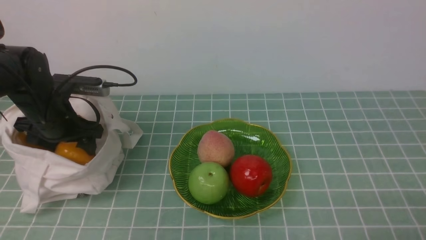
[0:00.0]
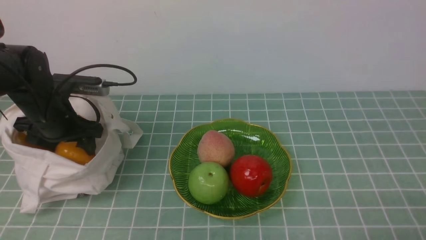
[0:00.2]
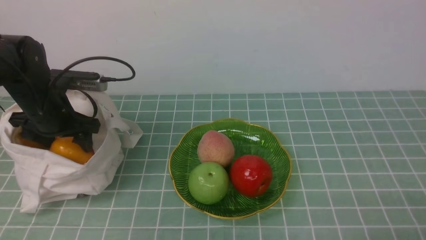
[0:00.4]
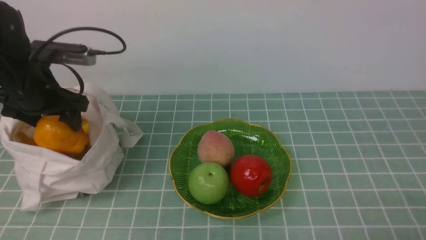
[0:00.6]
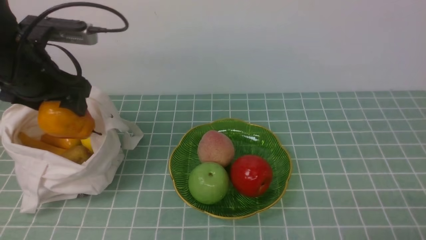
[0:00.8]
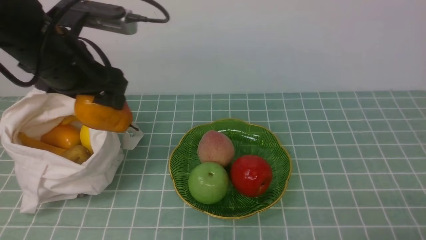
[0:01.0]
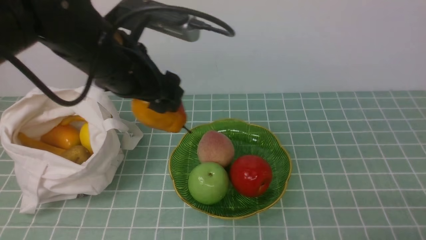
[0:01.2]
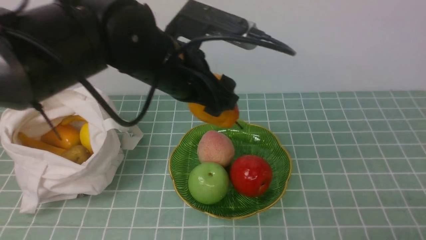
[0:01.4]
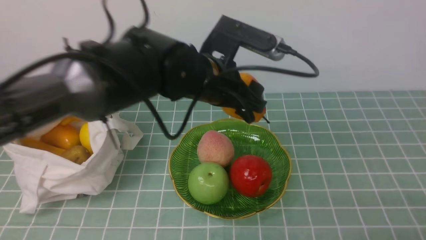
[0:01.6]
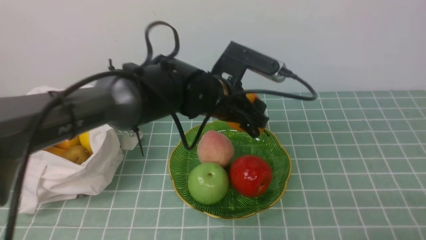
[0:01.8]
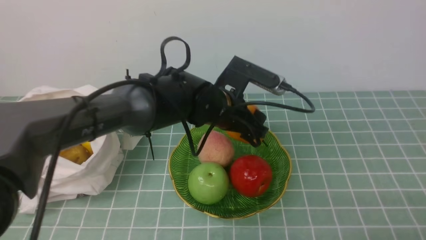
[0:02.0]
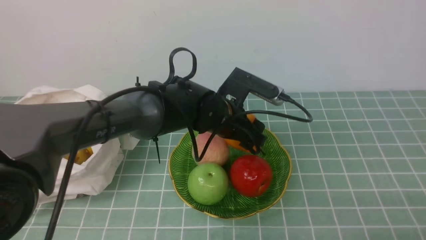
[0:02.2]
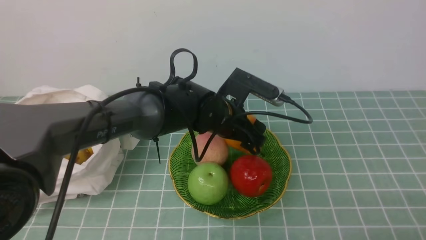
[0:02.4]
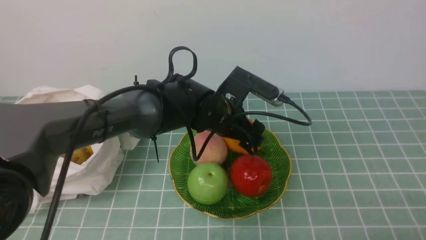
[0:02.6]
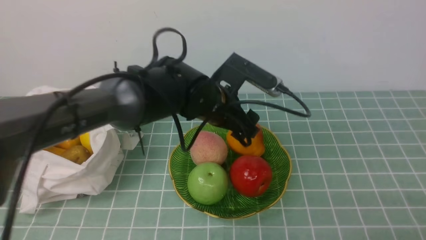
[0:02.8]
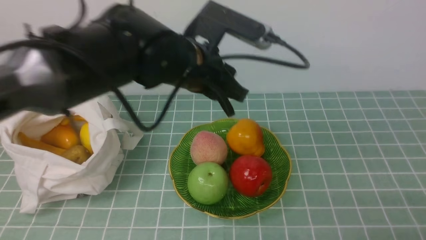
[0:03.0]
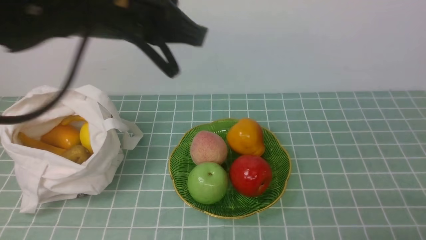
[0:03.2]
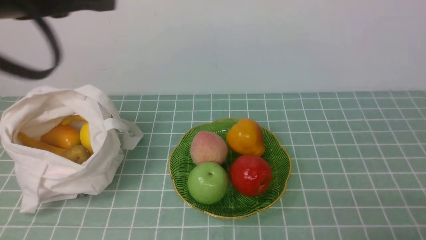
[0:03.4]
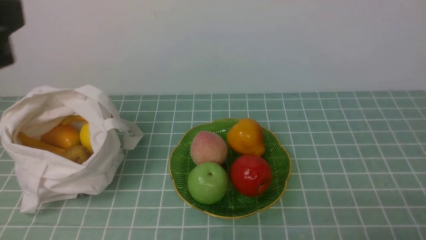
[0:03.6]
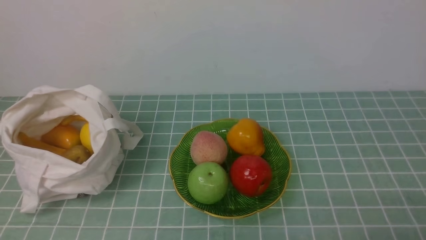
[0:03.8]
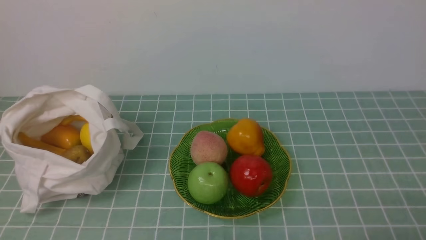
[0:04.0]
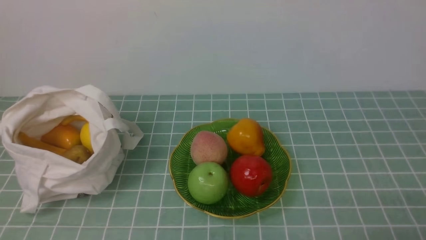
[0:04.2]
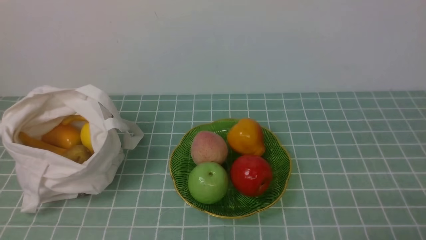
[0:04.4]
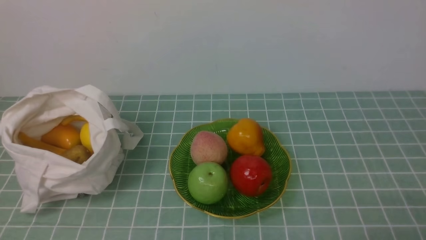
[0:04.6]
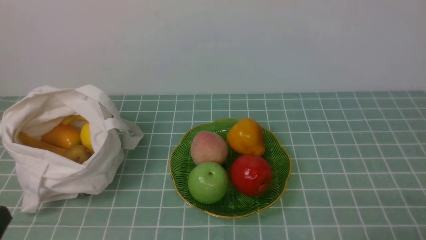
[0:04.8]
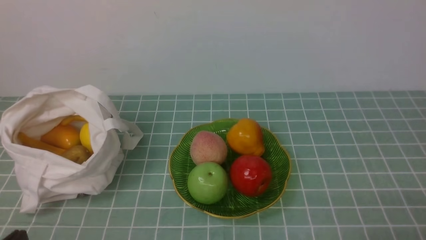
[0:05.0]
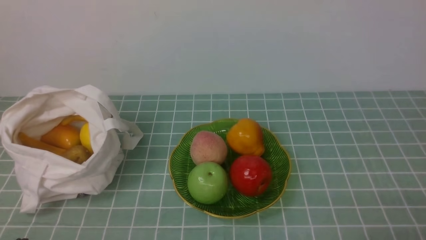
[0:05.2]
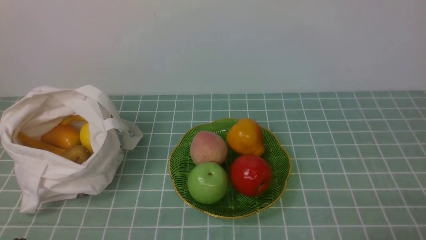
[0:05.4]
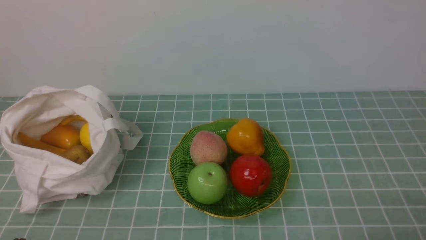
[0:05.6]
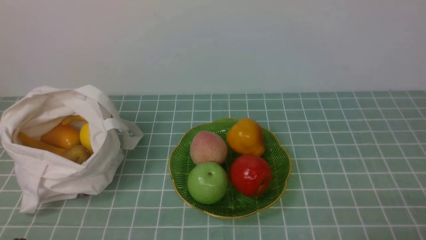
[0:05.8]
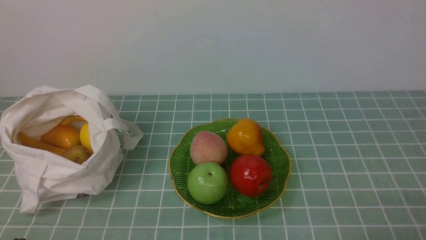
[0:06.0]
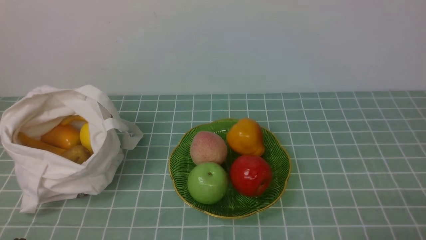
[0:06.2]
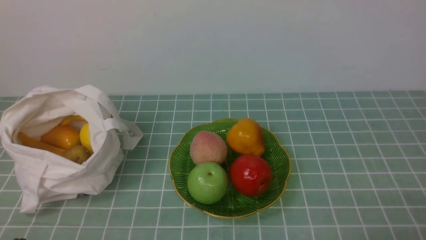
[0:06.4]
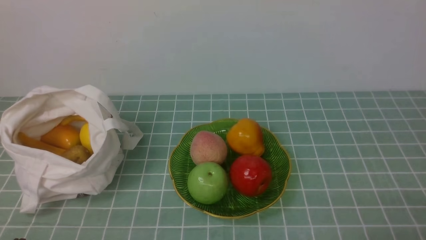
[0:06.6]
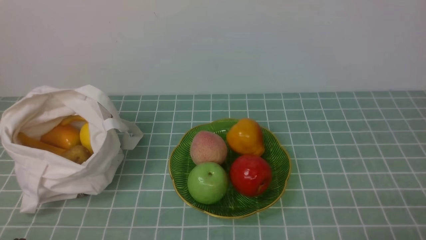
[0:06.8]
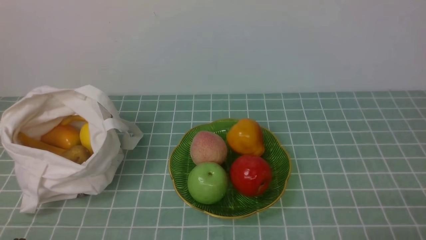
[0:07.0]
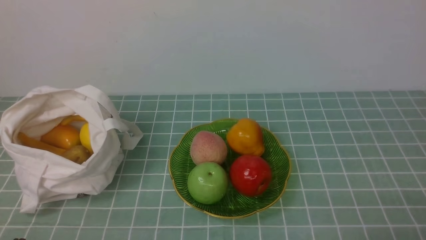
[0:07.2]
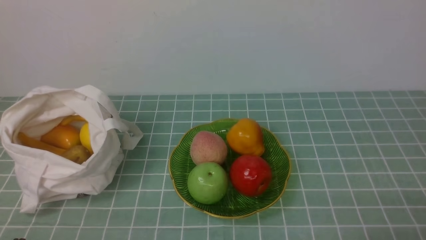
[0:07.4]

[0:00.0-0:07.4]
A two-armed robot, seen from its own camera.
Step, 0:00.8 to 0:02.8: use the left arm to put the pear into the empty plate on the right.
0:00.0 to 0:01.4: The left gripper heads to the right and upward, covering about 25 cm.
0:01.4 to 0:03.0: The left gripper travels downward and back again, approximately 10 cm each way, and closes.
0:03.0 to 0:04.4: The left gripper heads backward and to the left, covering some 35 cm, and closes.
0:06.0 to 0:07.4: Both grippers stay about where they are.
